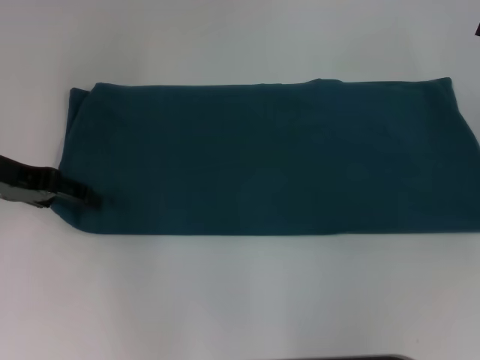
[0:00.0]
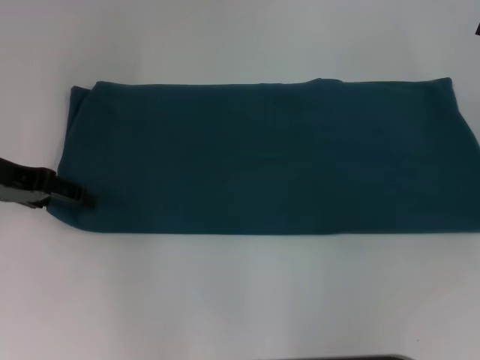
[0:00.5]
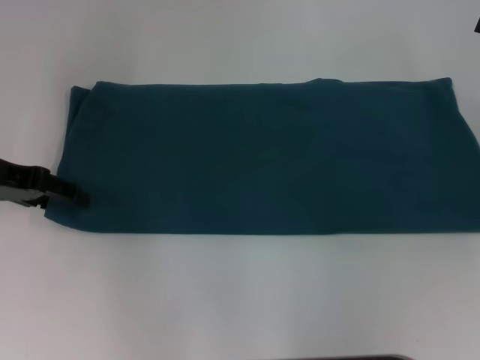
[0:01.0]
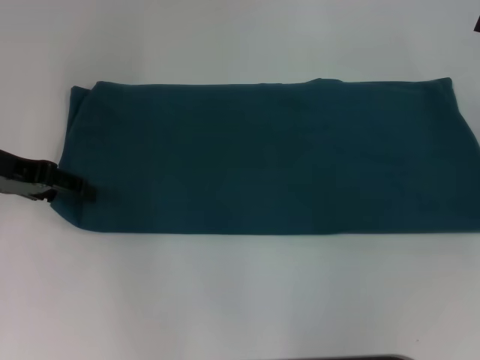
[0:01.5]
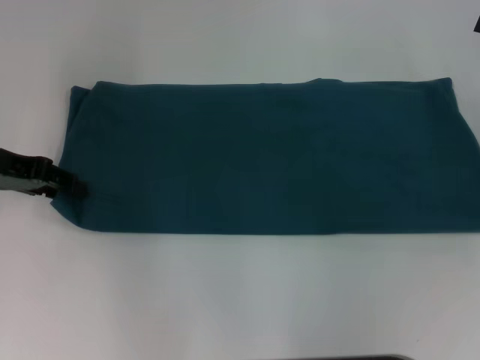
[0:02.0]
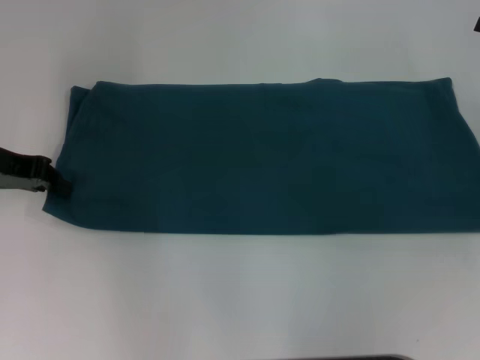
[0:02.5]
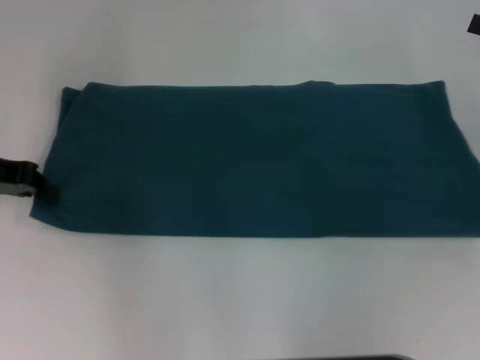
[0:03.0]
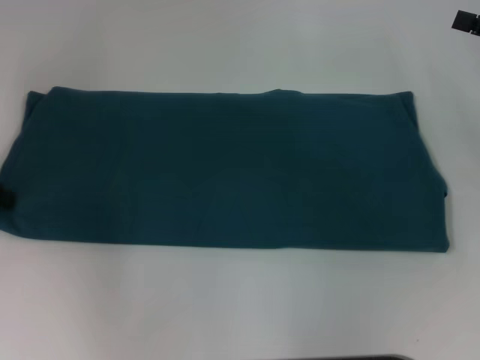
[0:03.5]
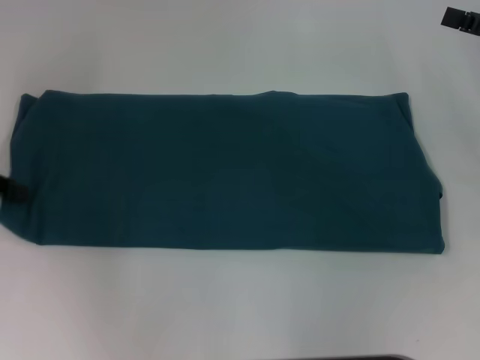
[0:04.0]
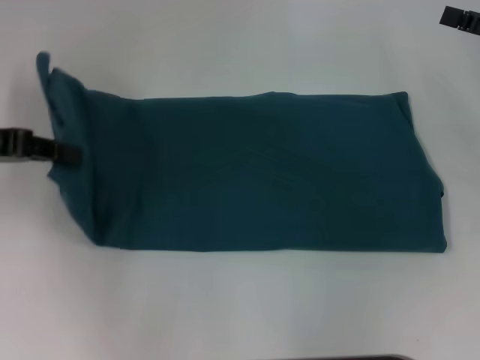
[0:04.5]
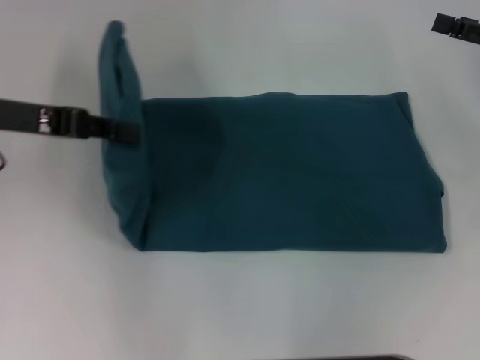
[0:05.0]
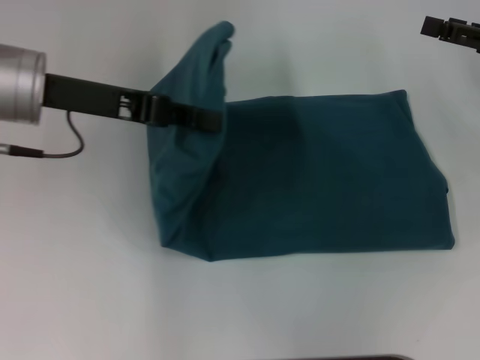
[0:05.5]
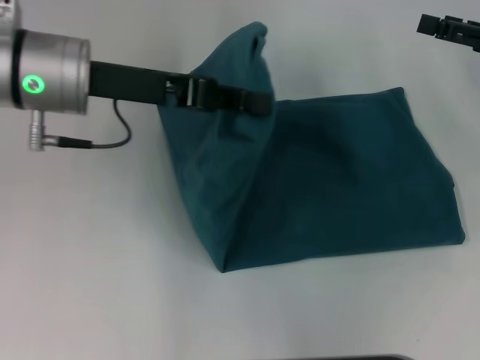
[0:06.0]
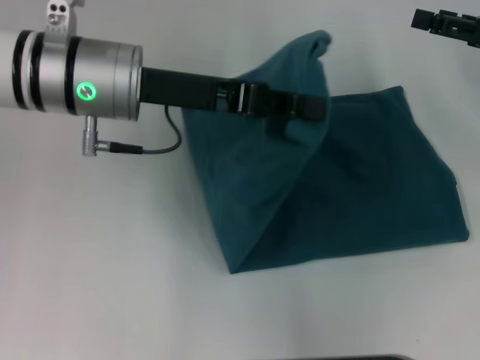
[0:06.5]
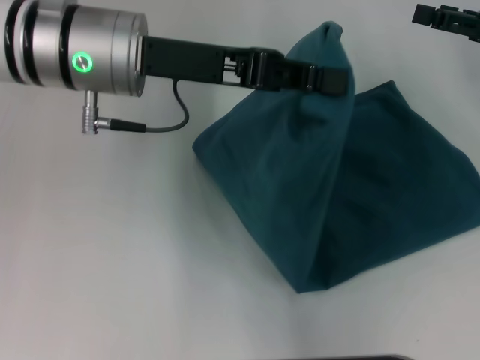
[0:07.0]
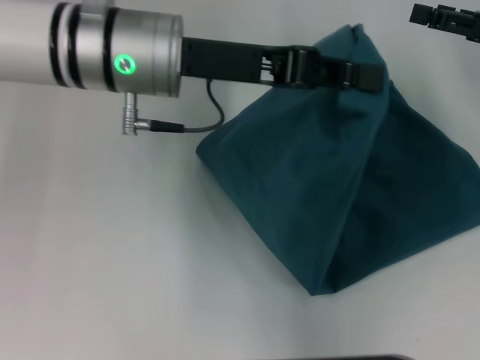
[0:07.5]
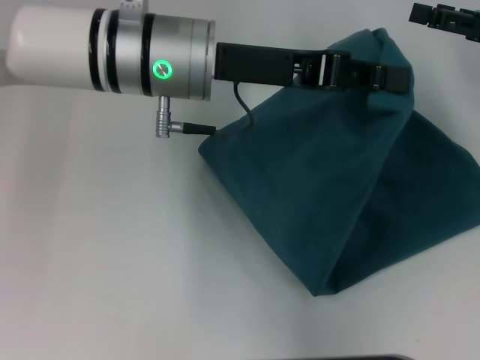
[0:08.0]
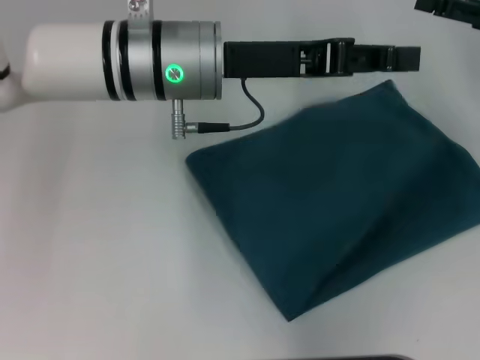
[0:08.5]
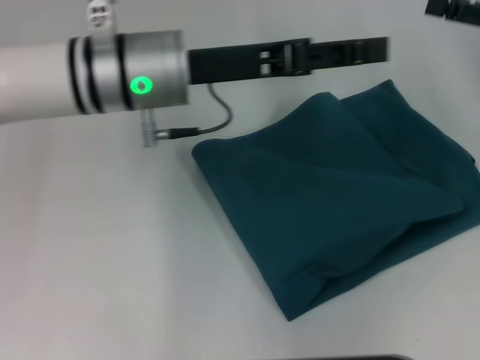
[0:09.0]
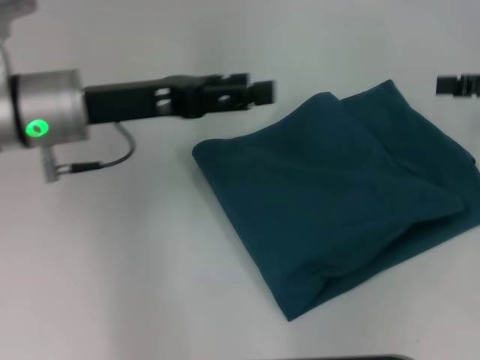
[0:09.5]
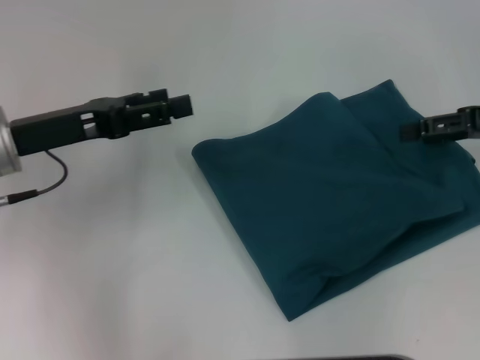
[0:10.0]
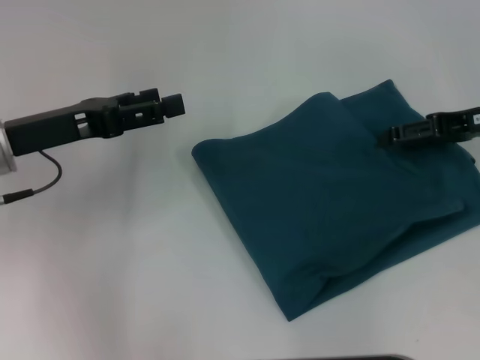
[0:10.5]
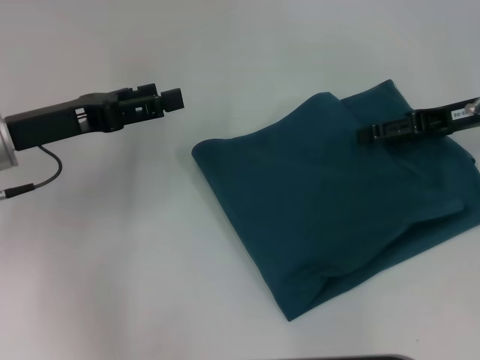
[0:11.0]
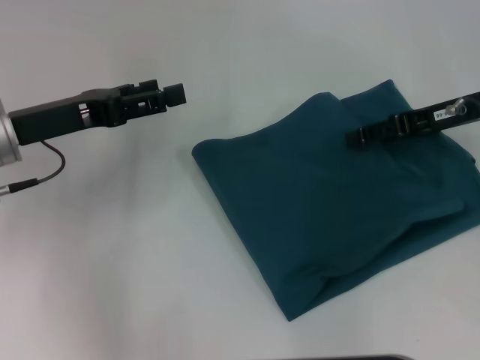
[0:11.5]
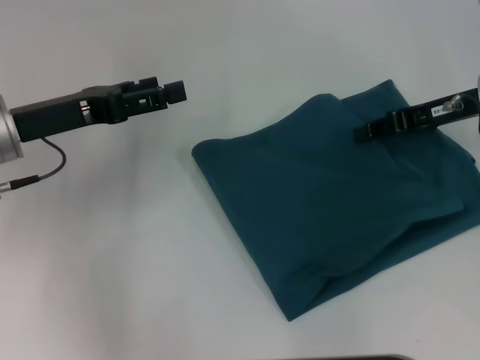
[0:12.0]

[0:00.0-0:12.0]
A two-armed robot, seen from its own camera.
Step, 0:00.0 to 0:08.5: Fold the clothes to the left.
0:00.0 to 0:02.0: The two grippers keep their place.
0:02.0 to 0:04.0: The left gripper shifts approximately 5 cm to the left, and closes up.
0:04.0 to 0:06.0: The left gripper heads to the right, covering some 20 cm.
0:06.0 to 0:08.0: The left gripper is displaced to the right by roughly 10 cm.
0:08.0 to 0:10.0: The left gripper heads to the left, covering roughly 15 cm, and opens up.
0:10.0 to 0:12.0: The right gripper shifts roughly 5 cm to the left, and closes up.

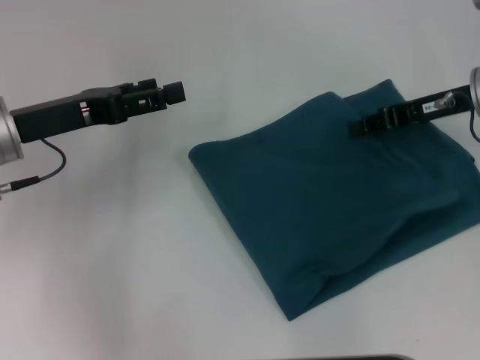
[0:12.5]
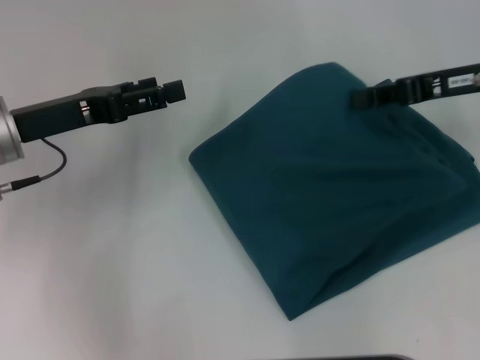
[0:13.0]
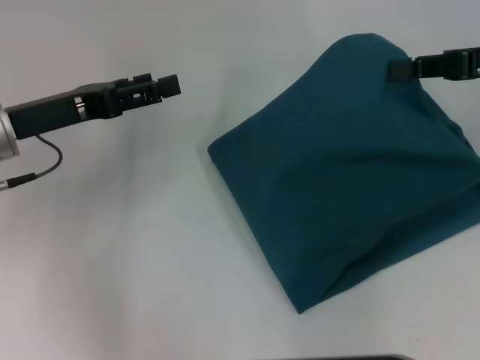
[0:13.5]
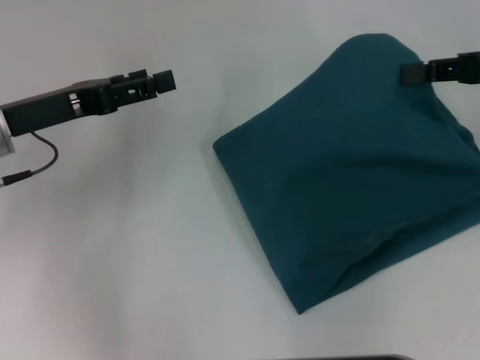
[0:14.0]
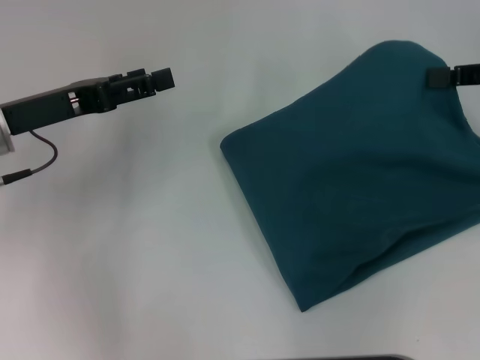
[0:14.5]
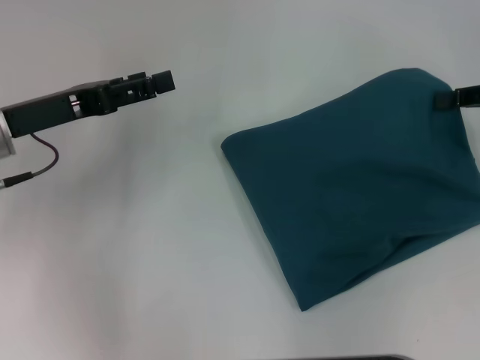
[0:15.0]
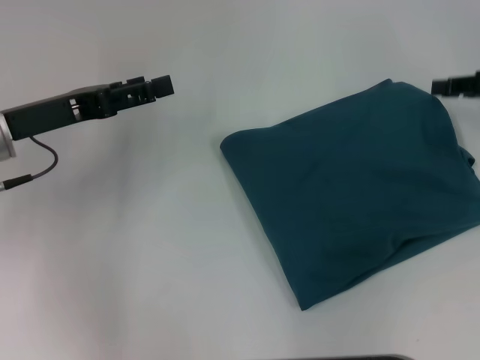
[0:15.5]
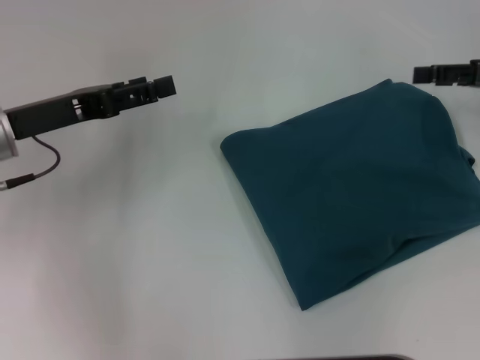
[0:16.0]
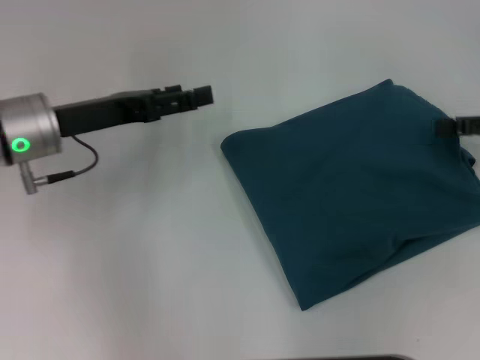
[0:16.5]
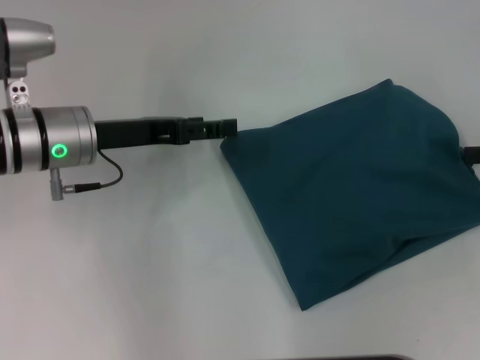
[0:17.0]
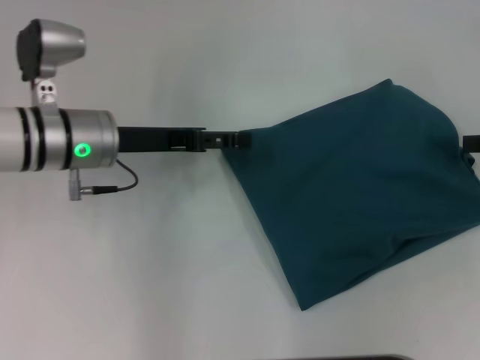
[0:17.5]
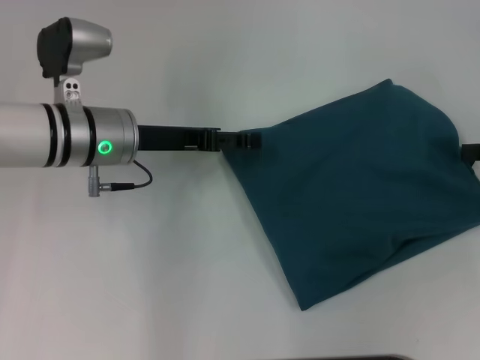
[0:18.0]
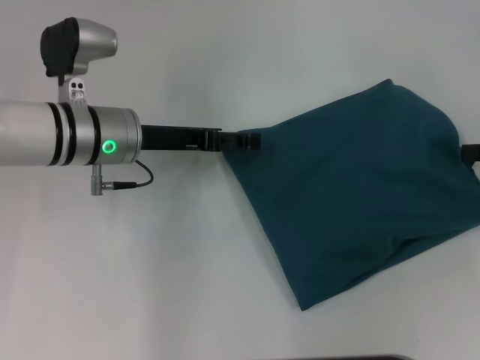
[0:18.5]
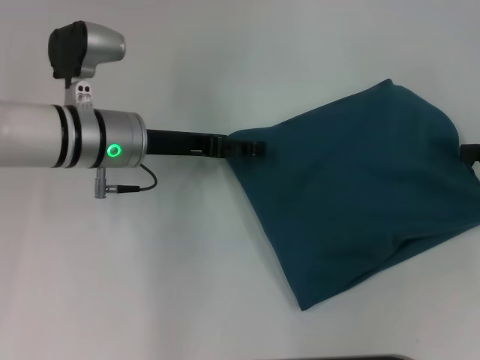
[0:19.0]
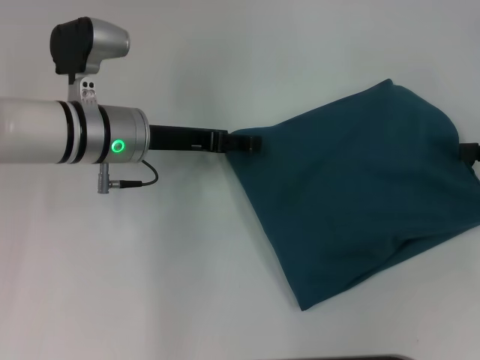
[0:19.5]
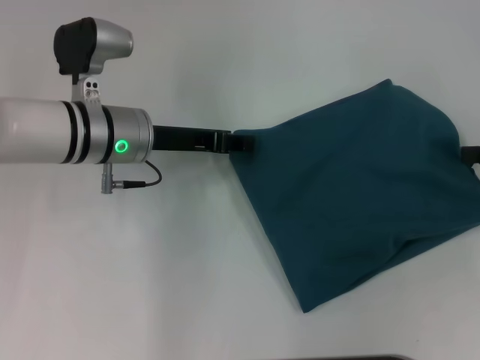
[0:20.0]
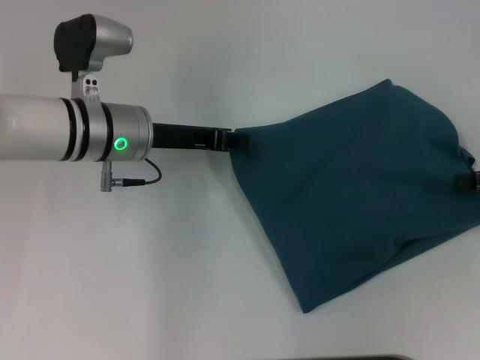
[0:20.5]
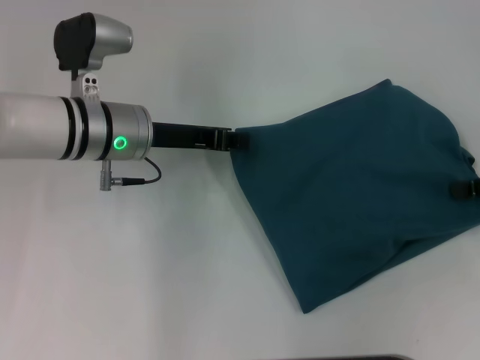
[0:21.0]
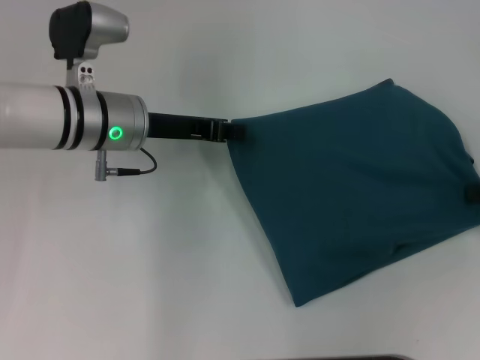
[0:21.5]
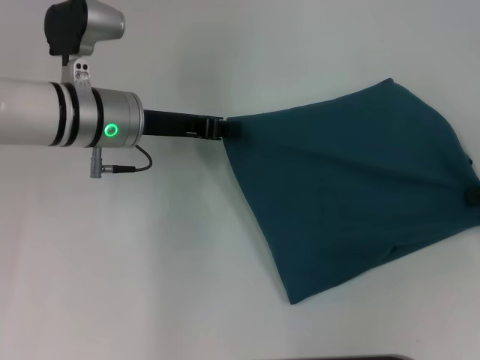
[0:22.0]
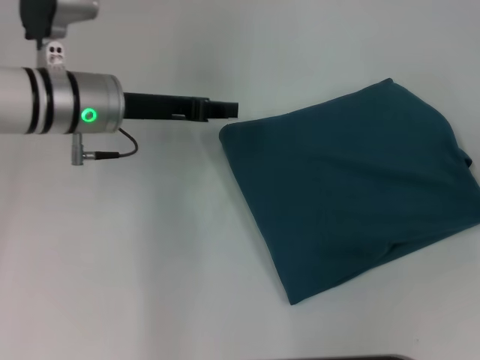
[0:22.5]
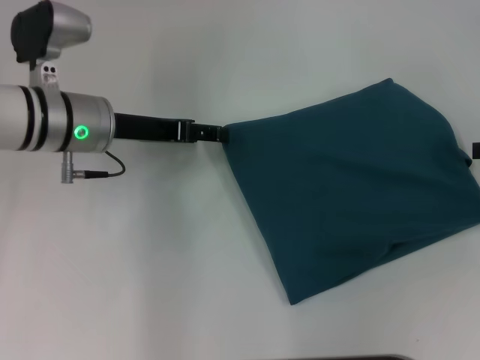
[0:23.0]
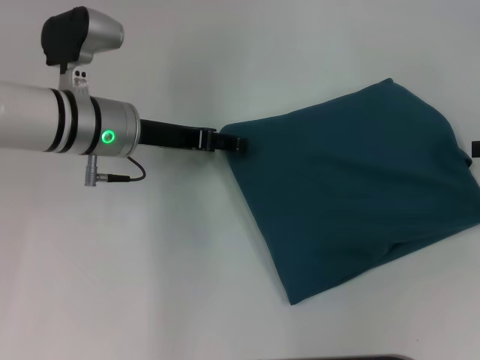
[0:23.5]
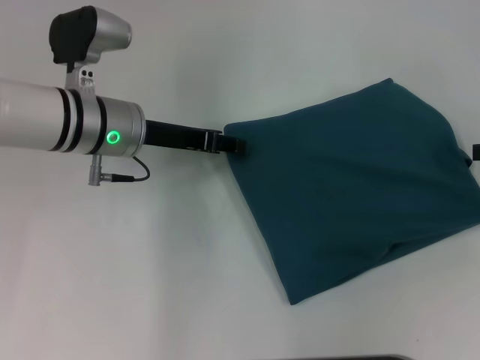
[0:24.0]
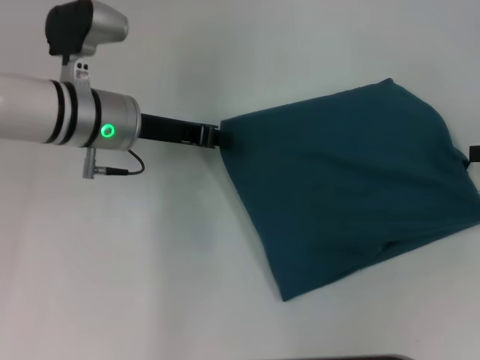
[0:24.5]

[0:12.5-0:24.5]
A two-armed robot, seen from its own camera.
0:12.5 to 0:14.5: The right gripper heads to the right and upward, covering roughly 10 cm.
0:14.5 to 0:16.5: The right gripper moves about 5 cm, and opens.
0:16.5 to 0:18.5: The left gripper travels to the right by about 5 cm.
0:18.5 to 0:20.5: The left gripper closes.
0:20.5 to 0:22.5: The right gripper closes its fingers.
0:22.5 to 0:24.5: The left gripper opens, then closes once more. The right gripper opens its fingers.

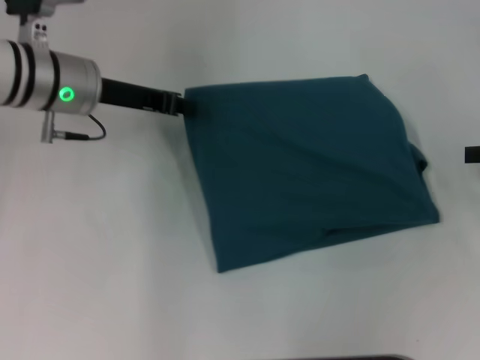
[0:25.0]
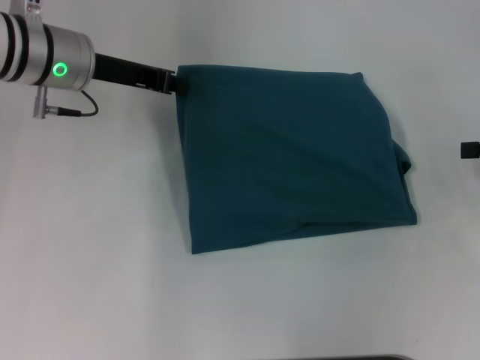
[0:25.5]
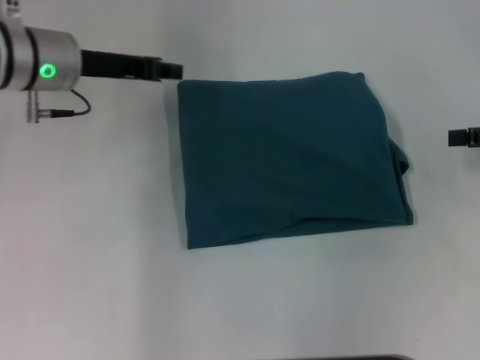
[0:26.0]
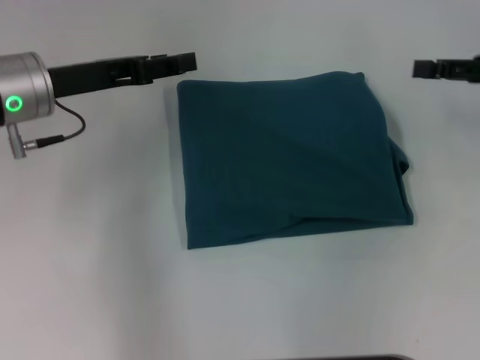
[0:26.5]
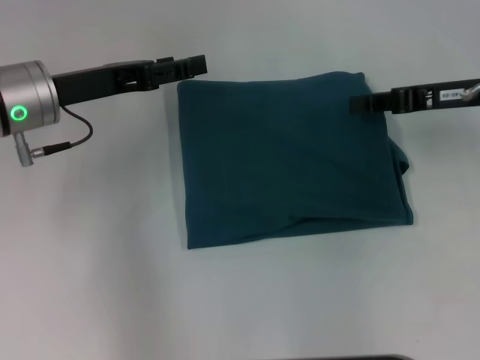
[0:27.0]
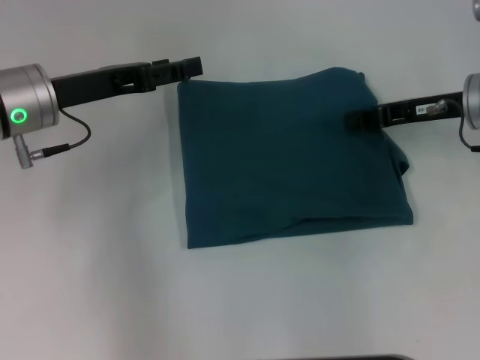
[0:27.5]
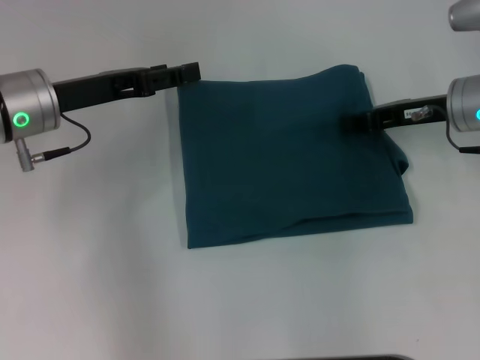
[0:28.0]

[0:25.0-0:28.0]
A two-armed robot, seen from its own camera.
0:25.0 to 0:26.5: The left gripper moves roughly 5 cm, and opens up. Meanwhile the right gripper travels forward and to the left by about 5 cm.
0:26.5 to 0:28.0: The right gripper moves to the left and downward, approximately 10 cm, and closes up.
